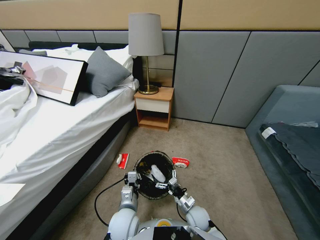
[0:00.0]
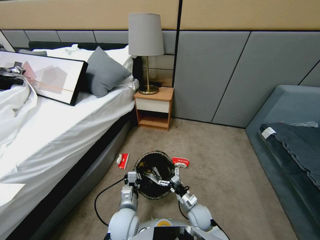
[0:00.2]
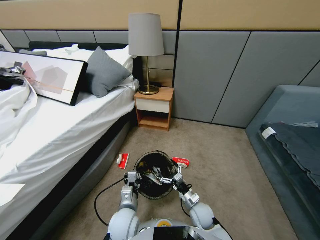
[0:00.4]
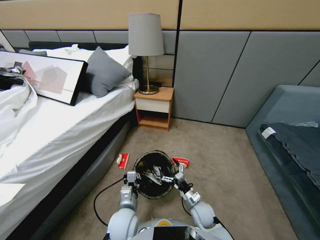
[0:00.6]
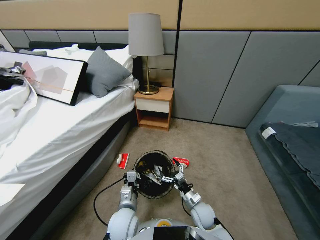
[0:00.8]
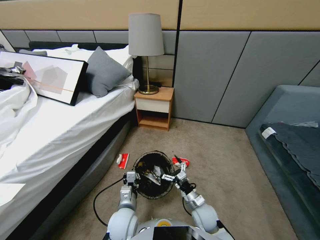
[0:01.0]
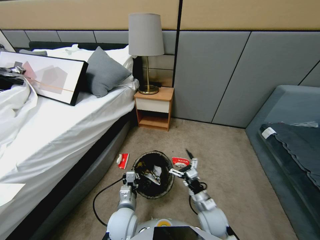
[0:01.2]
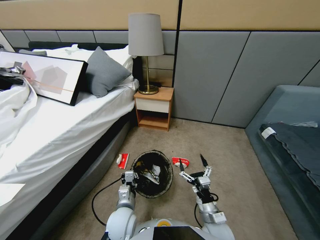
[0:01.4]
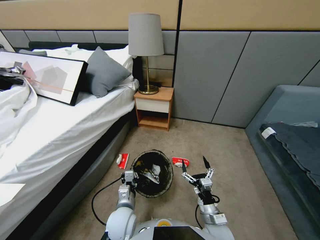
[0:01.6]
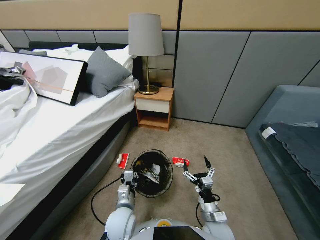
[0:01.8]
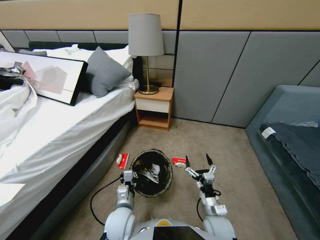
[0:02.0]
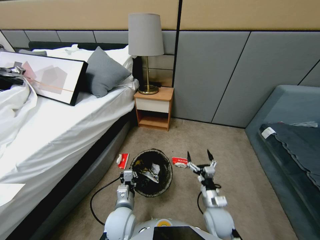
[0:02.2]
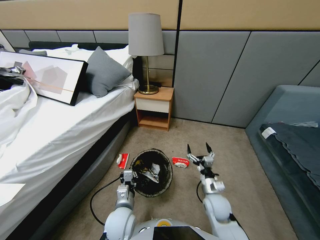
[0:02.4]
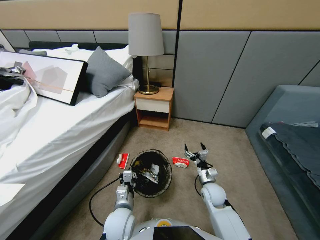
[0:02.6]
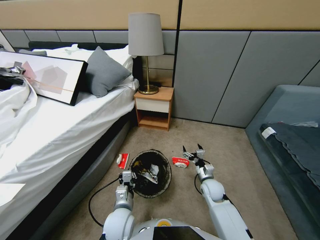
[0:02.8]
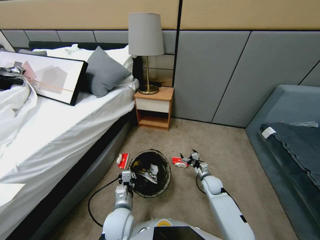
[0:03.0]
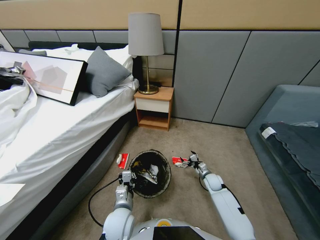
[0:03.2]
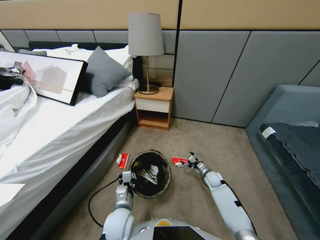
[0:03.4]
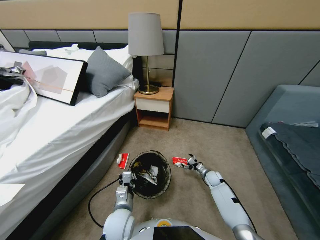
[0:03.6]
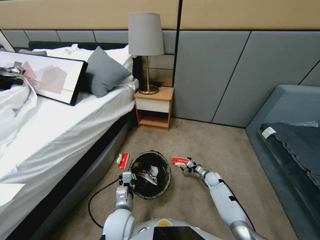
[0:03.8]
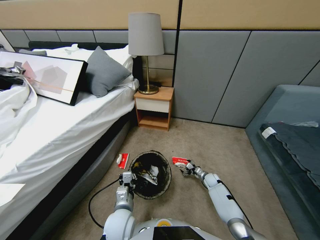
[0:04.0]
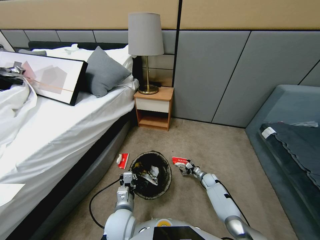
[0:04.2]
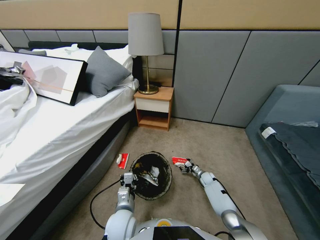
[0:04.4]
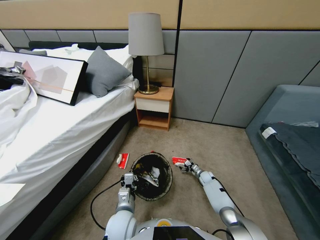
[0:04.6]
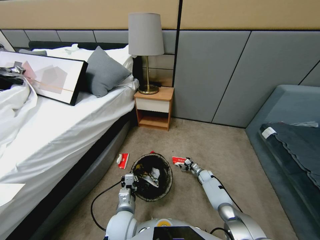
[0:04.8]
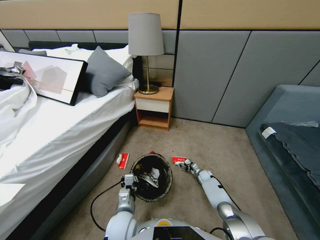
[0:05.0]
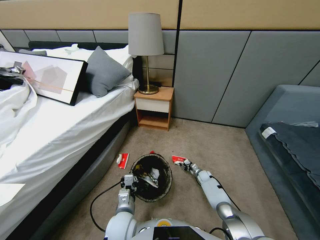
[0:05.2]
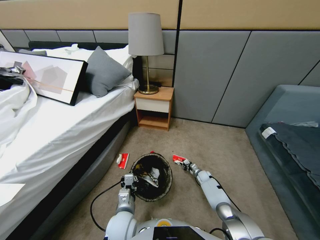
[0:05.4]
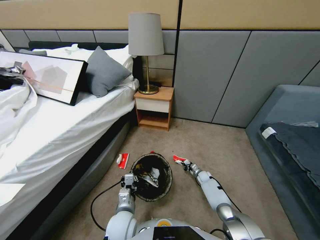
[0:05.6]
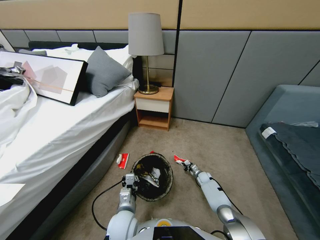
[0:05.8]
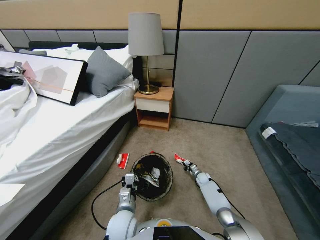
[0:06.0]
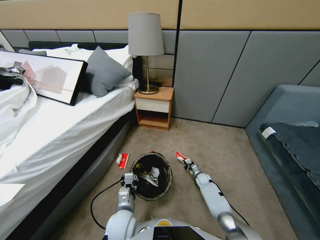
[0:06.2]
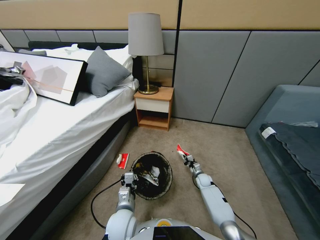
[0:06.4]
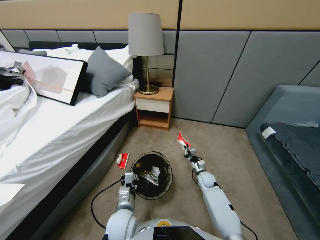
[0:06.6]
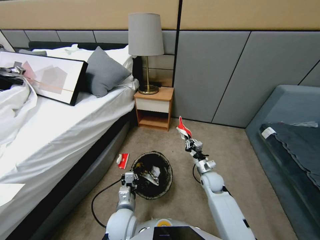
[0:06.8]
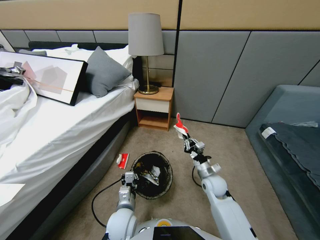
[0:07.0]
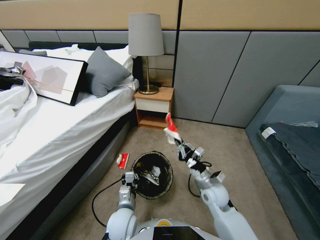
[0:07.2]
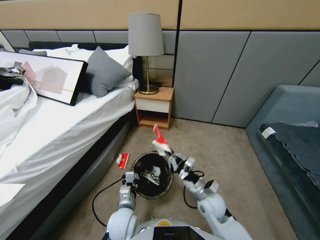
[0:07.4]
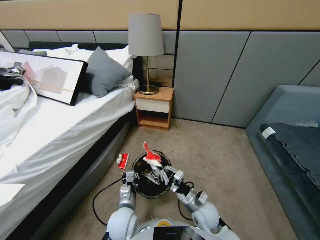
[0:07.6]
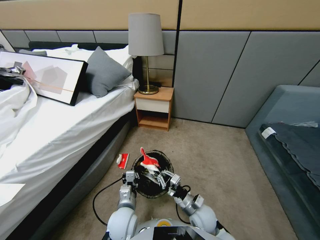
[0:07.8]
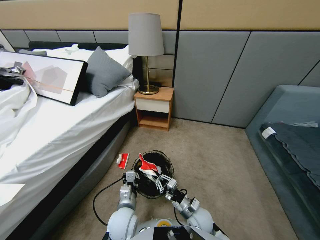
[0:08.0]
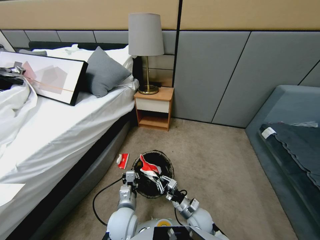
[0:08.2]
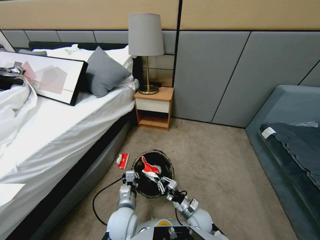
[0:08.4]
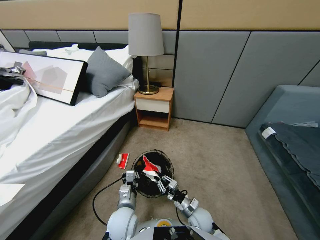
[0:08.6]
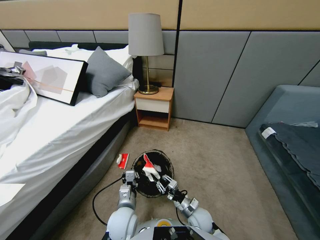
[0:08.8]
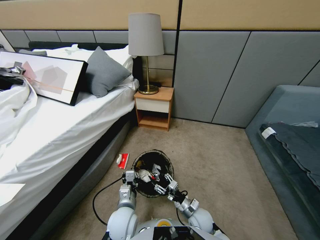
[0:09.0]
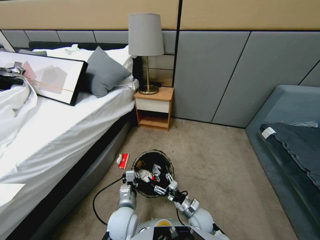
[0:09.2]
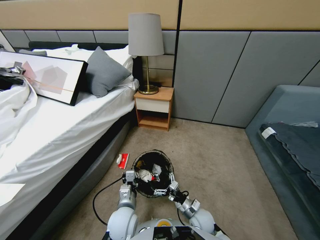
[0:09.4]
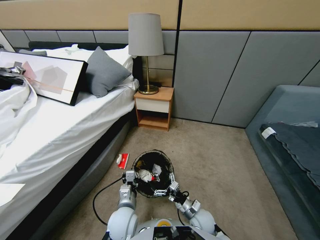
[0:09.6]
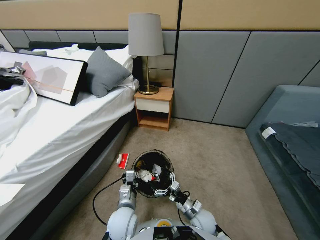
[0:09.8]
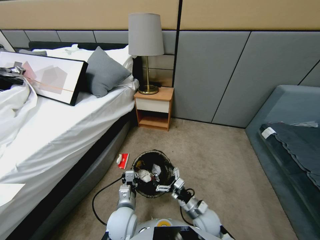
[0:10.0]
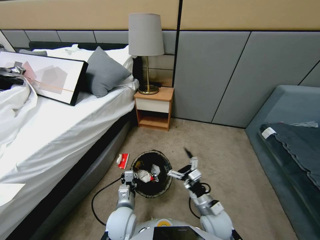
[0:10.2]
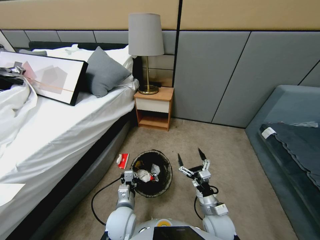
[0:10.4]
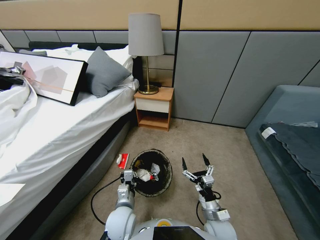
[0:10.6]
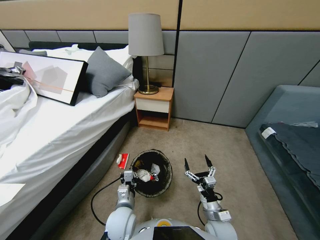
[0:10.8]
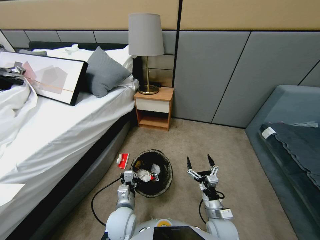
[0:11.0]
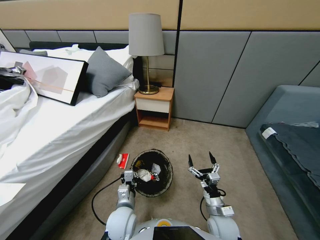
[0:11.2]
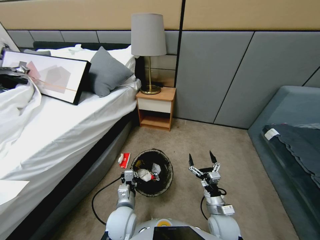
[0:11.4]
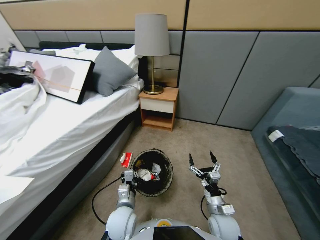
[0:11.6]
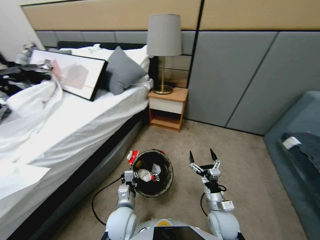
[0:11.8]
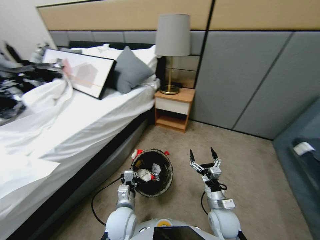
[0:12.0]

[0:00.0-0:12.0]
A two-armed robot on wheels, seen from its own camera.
Task of the whole recording: Pick up the trash bin, then pick up the garbage from the floor and place it into the trash bin.
0:00.0 to 0:01.6: The right gripper goes roughly 10 cm upward and backward.
0:01.6 to 0:03.0: The right gripper goes approximately 25 cm forward and to the right.
0:03.0 to 0:04.4: The right gripper travels downward and forward by approximately 15 cm.
0:04.4 to 0:06.0: The right gripper closes its fingers.
0:06.0 to 0:07.6: The right gripper heads backward, upward and to the left, covering roughly 30 cm.
0:07.6 to 0:09.0: The right gripper goes about 5 cm downward, and opens.
0:09.0 to 0:10.4: The right gripper goes roughly 10 cm upward.

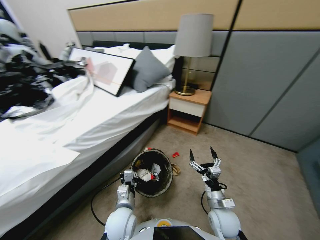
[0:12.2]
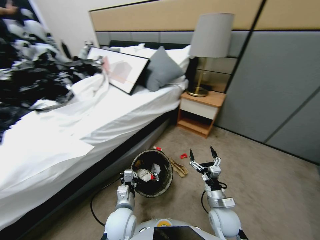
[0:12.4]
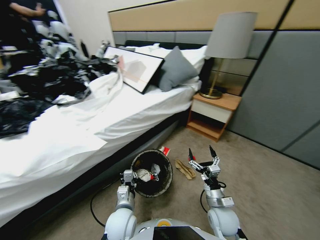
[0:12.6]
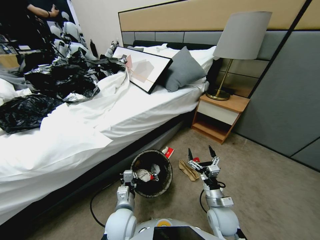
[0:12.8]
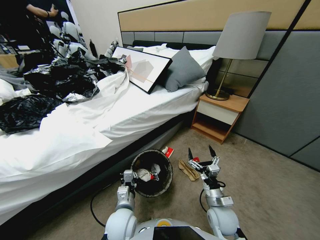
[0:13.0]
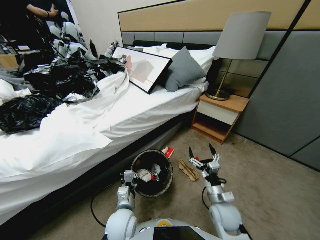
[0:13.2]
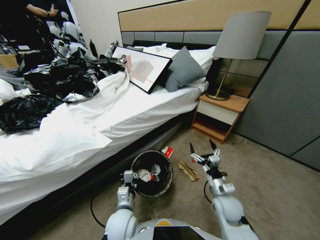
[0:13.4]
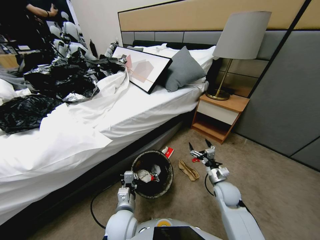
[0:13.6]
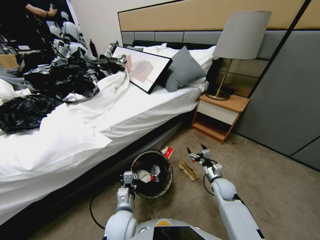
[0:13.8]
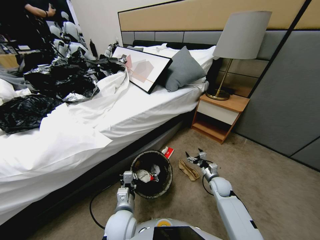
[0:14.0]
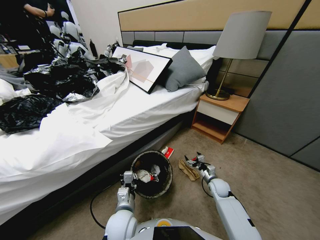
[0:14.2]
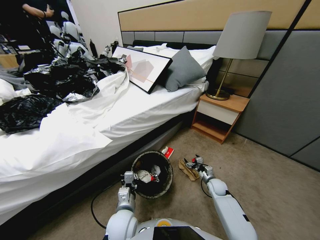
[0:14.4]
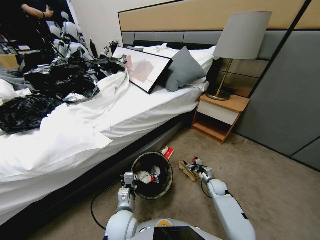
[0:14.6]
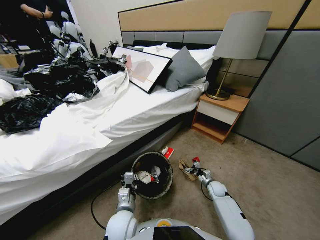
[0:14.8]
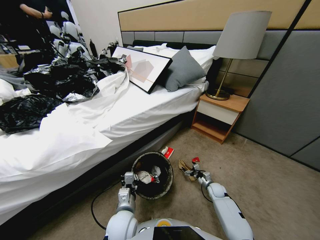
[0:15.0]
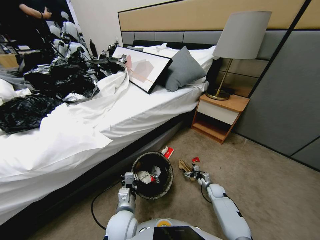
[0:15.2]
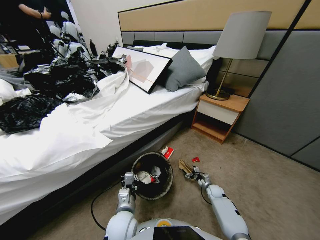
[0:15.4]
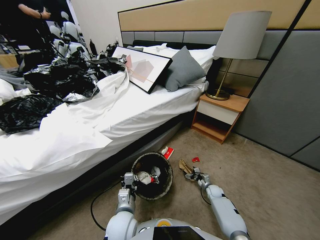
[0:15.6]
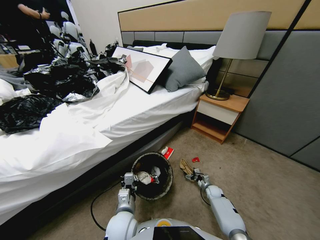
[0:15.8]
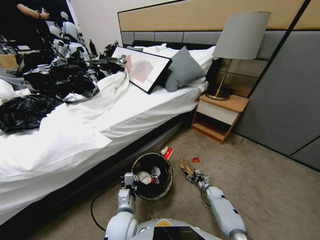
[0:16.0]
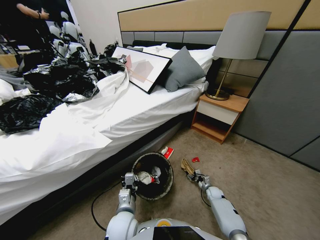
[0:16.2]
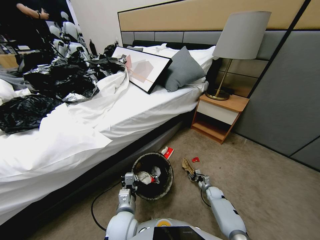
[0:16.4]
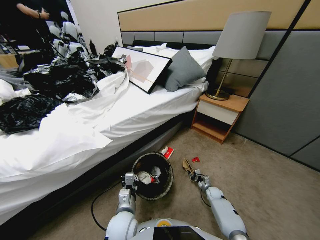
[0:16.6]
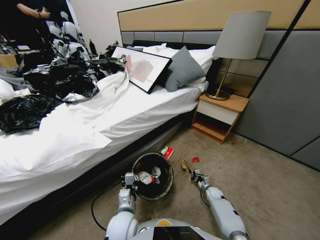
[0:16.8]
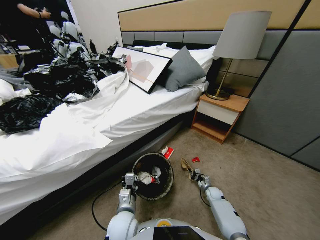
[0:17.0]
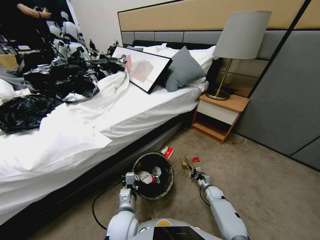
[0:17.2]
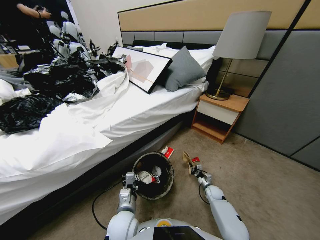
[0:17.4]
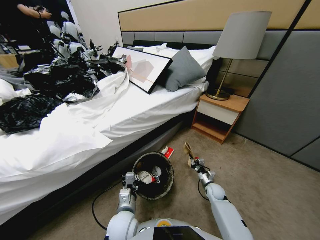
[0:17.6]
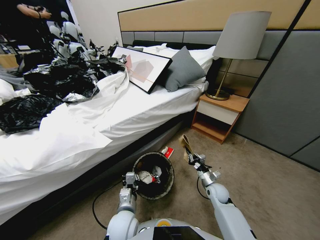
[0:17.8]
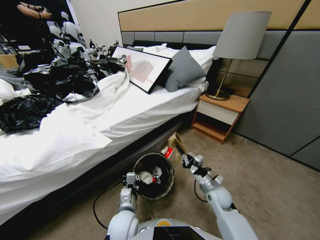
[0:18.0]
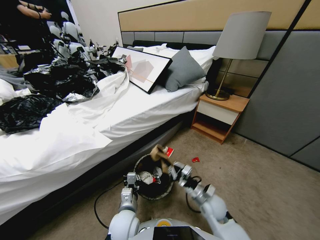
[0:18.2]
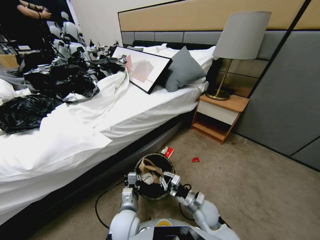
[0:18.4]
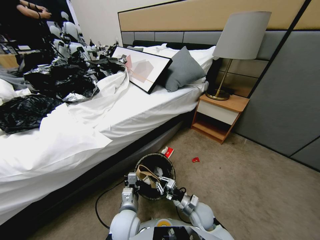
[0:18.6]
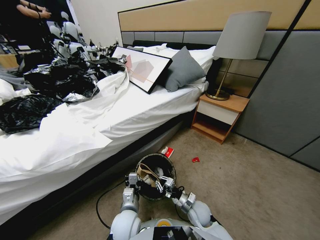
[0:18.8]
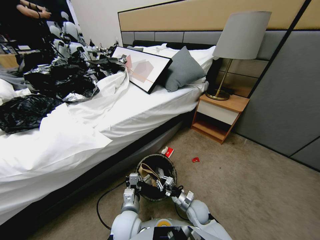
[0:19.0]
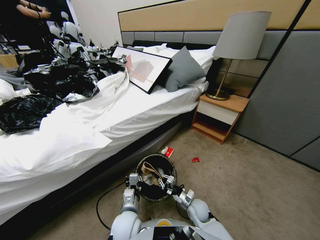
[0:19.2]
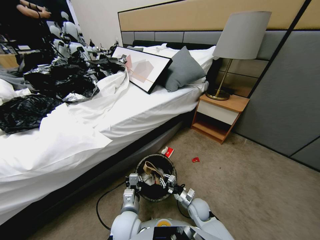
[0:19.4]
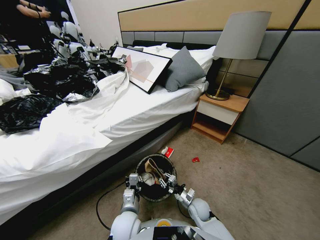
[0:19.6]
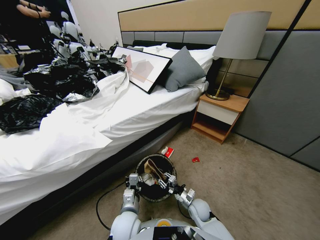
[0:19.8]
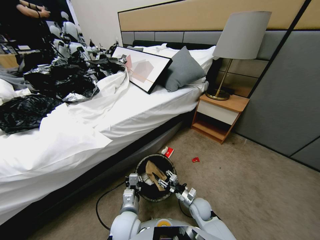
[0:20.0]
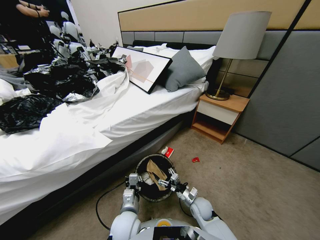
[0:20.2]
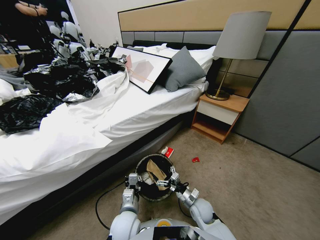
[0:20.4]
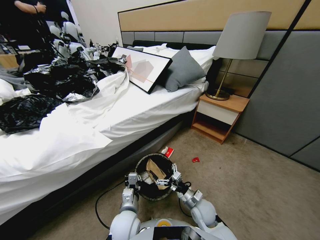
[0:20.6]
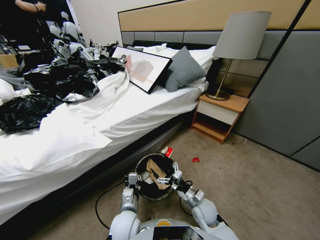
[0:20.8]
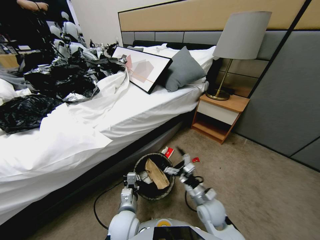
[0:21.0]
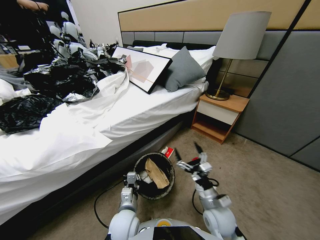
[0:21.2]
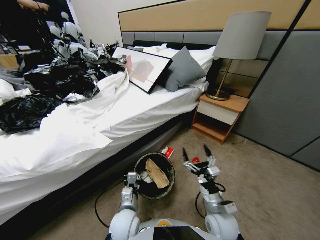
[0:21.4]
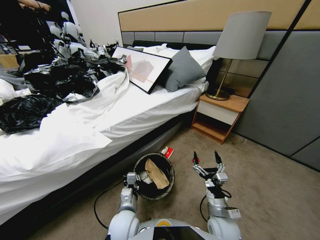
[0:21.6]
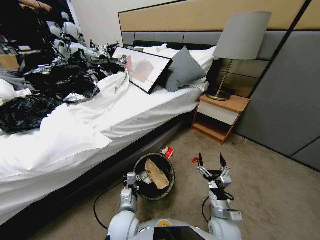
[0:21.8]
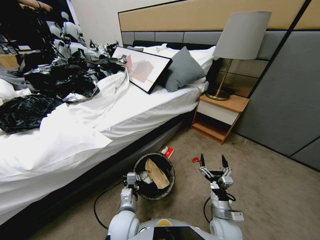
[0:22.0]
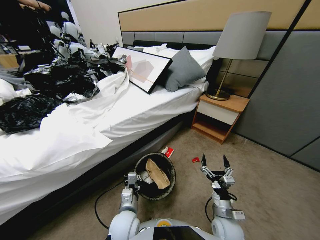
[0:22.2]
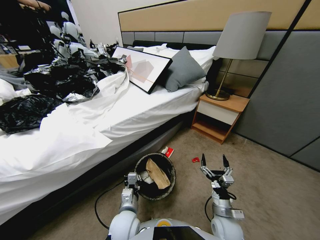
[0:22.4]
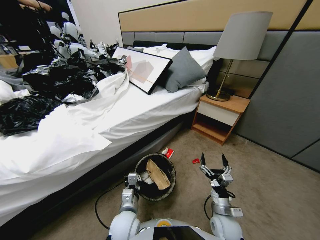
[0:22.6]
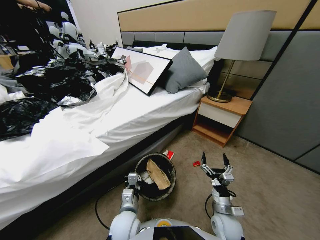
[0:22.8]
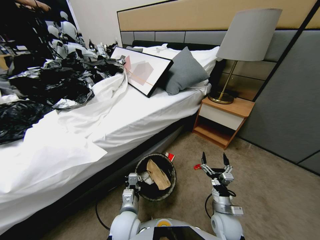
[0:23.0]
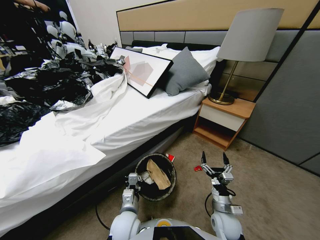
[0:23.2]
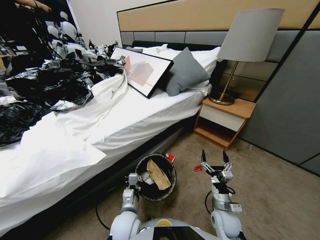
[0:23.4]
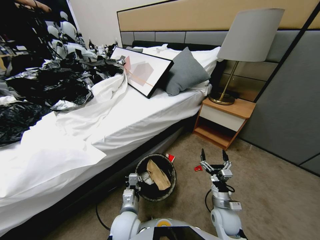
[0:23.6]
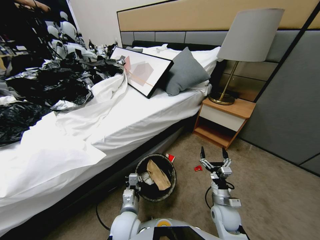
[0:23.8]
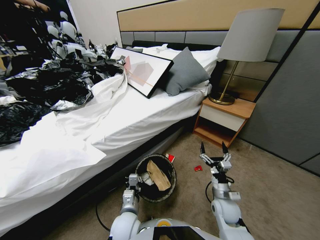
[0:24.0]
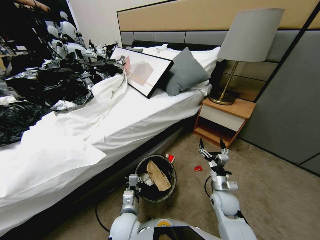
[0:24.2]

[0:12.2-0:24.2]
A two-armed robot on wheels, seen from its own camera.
Task of the whole recording: Pick up the trash bin, then pick up the garbage from the floor and place it into the trash bin.
0:12.2 to 0:13.8: The right gripper is displaced forward and to the right by approximately 15 cm.
0:13.8 to 0:15.2: The right gripper heads downward, covering approximately 15 cm.
0:15.2 to 0:16.6: The right gripper closes its fingers.
0:16.6 to 0:18.2: The right gripper is displaced upward, to the left and backward by roughly 30 cm.
0:18.2 to 0:19.8: The right gripper goes approximately 10 cm downward, and opens its fingers.
0:19.8 to 0:21.2: The right gripper heads upward and backward, covering roughly 15 cm, and opens.
0:21.2 to 0:22.6: The right gripper travels downward by some 5 cm.
0:22.6 to 0:24.2: The right gripper is displaced forward by some 10 cm.
